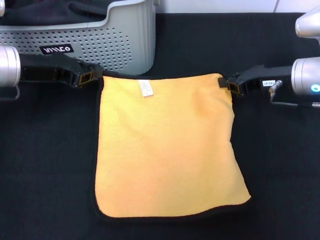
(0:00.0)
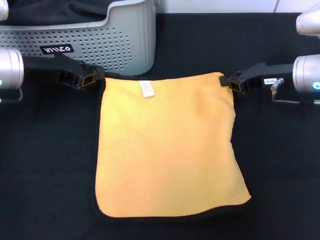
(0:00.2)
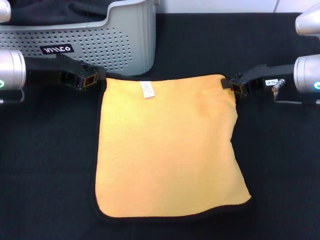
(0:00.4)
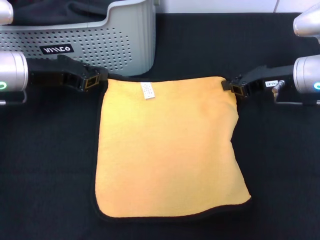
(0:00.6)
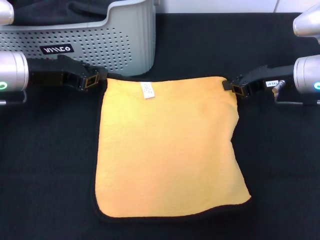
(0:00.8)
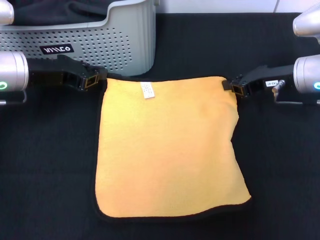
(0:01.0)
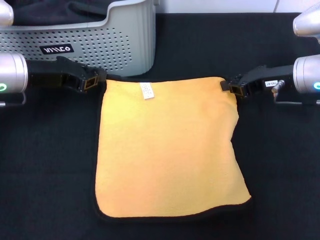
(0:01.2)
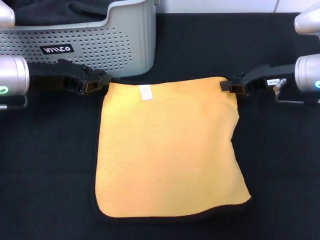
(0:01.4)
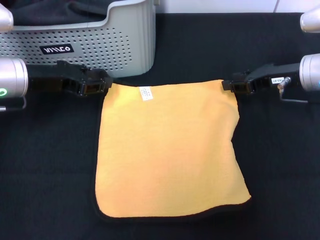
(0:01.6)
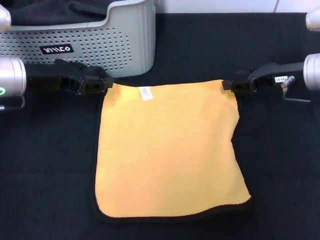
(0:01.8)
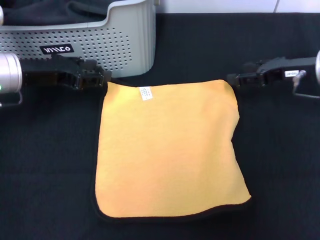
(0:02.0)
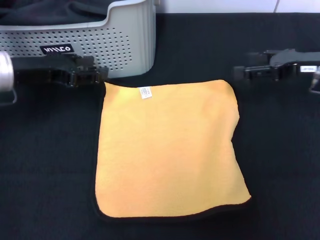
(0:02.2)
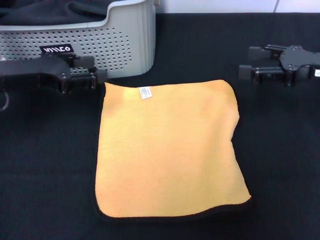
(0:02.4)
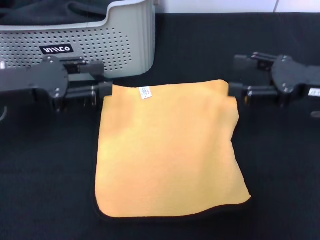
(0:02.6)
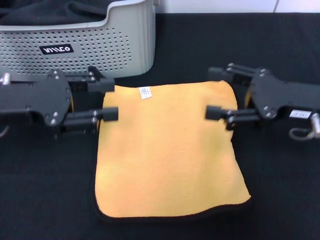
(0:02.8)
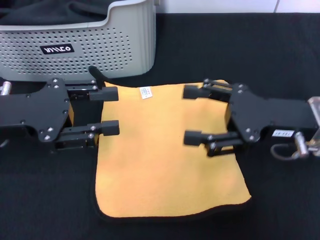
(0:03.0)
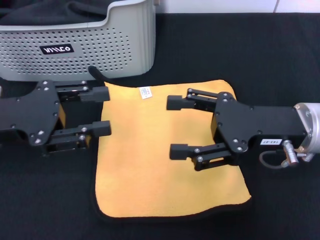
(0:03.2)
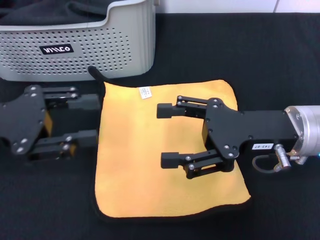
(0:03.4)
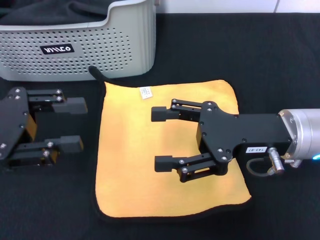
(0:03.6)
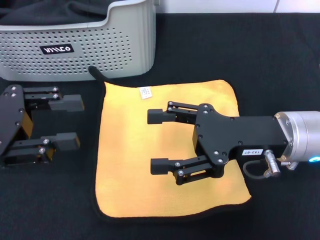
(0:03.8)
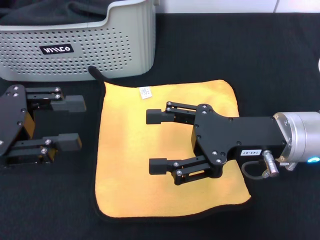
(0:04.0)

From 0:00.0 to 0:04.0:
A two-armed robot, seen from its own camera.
Task of the whole recording: pick up the towel from the storage box and lay it flat on the black tablecloth.
From 0:00.0 to 0:01.4: The grippers make only small movements.
From 0:01.4 to 0:02.6: The grippers both shift backward by some 5 cm. The left gripper opens up. Meanwhile the right gripper opens.
From 0:02.6 to 0:04.0: The right gripper heads to the left and backward, covering roughly 10 cm. The left gripper shifts approximately 5 cm backward.
